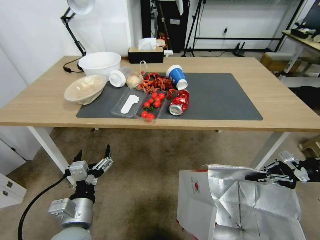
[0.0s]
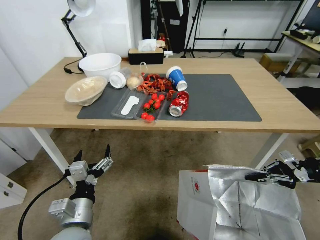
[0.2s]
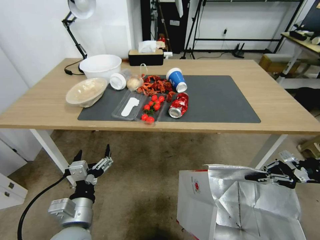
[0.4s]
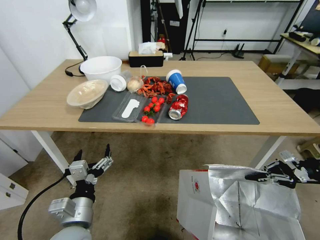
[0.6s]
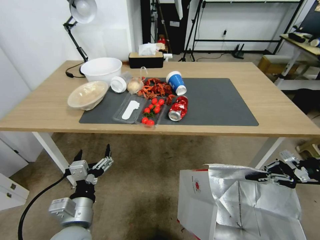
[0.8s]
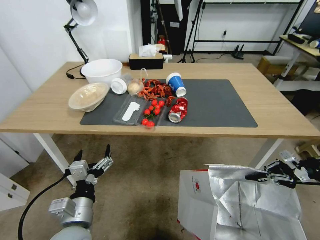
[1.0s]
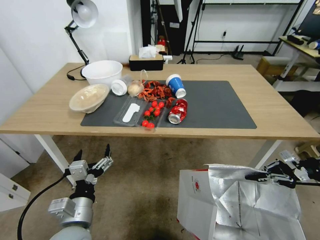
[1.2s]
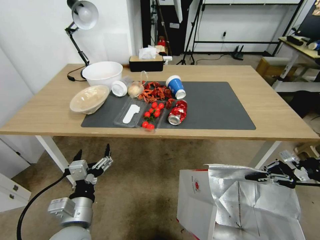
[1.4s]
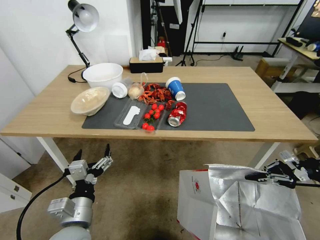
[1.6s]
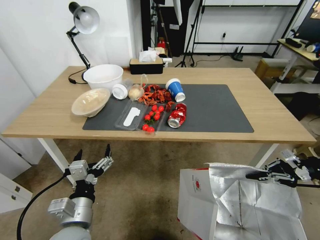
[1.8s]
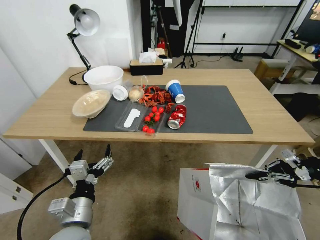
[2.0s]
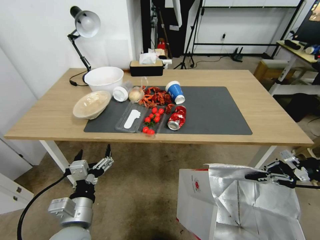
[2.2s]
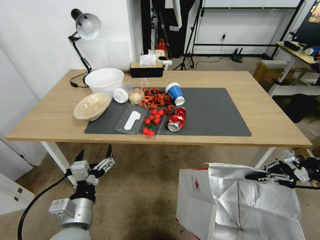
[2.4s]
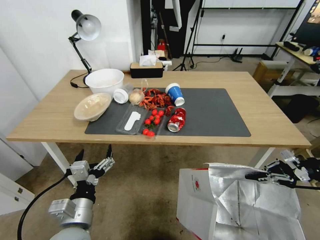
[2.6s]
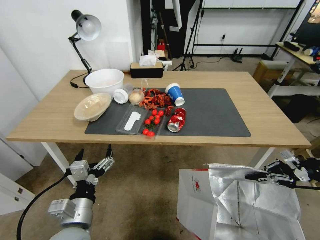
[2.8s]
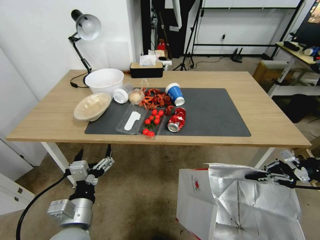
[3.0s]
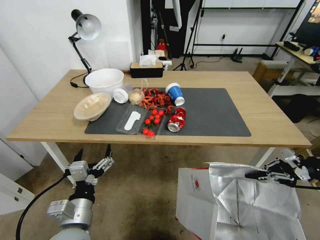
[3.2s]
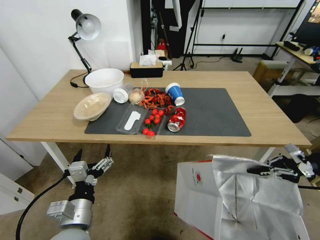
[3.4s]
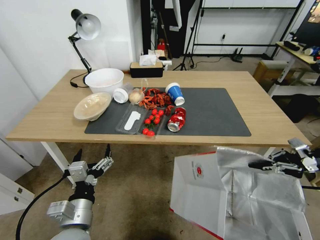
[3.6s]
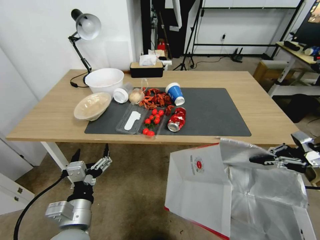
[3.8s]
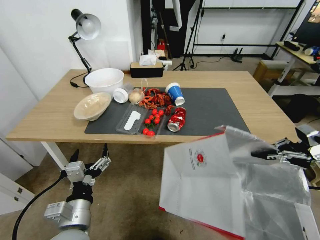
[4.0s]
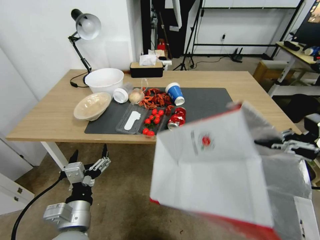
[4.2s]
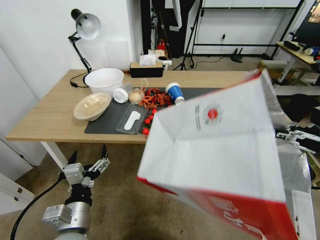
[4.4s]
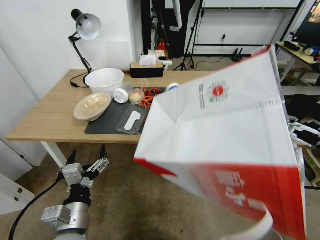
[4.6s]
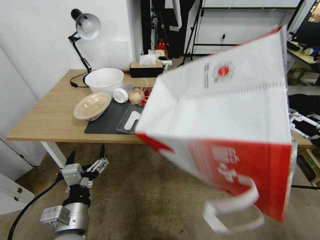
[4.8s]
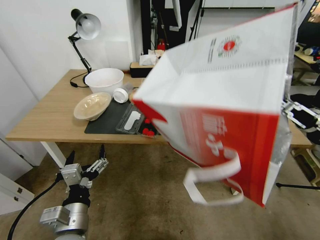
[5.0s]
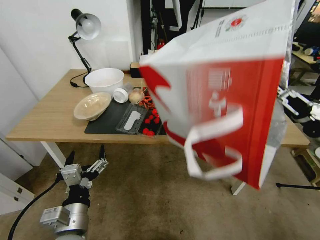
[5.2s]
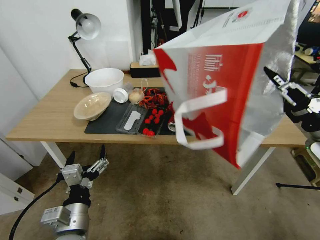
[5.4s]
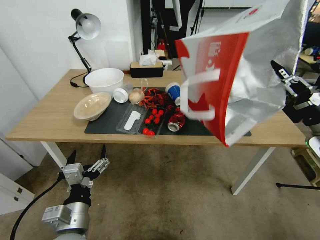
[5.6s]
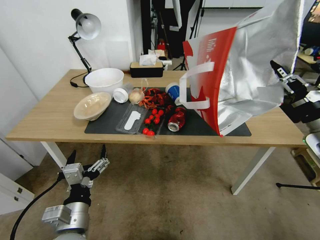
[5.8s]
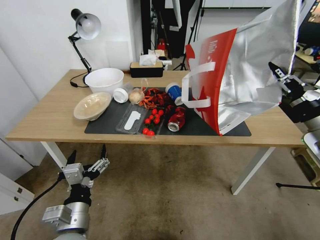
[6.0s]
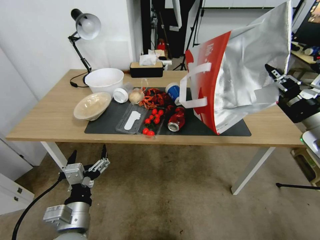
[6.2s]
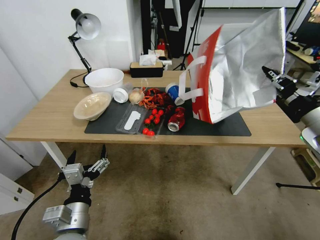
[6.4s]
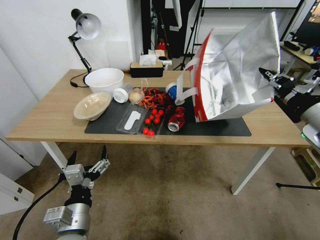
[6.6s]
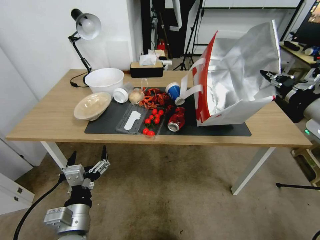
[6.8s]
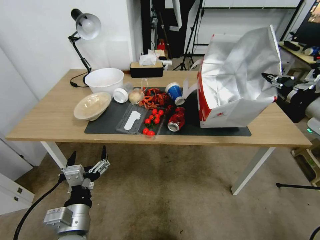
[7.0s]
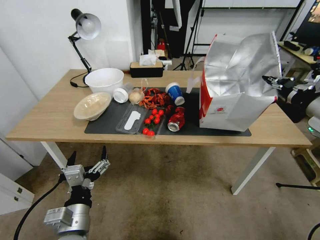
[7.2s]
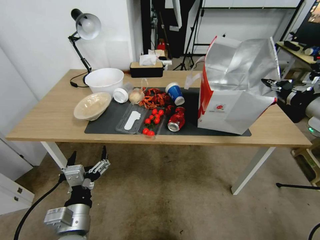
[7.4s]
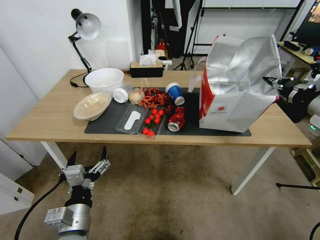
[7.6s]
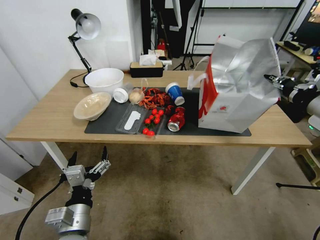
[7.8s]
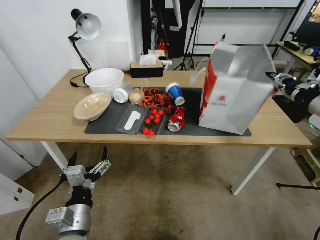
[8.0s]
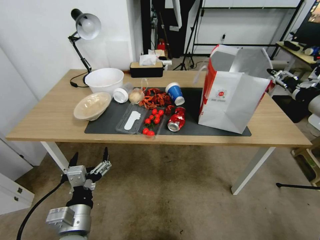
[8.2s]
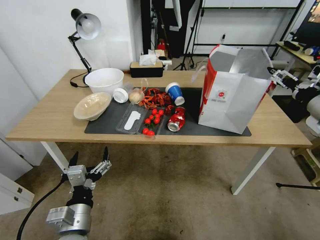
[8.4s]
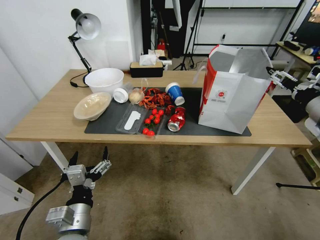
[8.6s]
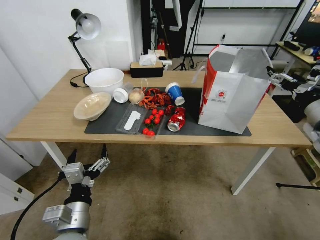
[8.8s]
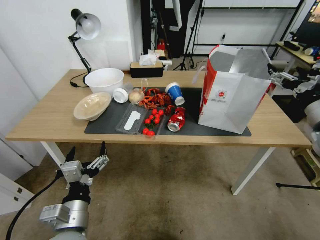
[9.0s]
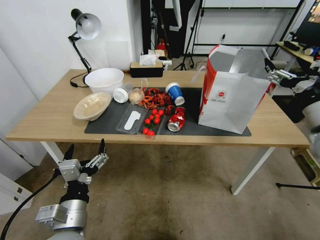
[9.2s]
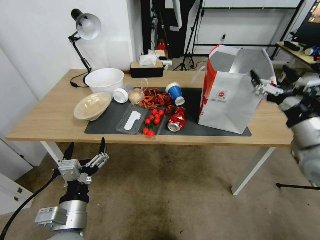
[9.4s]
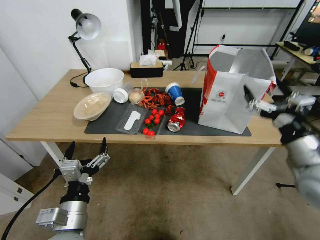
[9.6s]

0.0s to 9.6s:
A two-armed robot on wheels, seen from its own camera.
Task of the whole recording: Pick up the food delivery bag from the floor and place it on the table.
3.2s to 4.8s: The right gripper heads to the left, covering about 5 cm.
4.8s to 6.4s: The right gripper goes about 10 cm to the left.
6.4s to 8.0s: The right gripper changes place by some 5 cm, and opens its fingers.
8.0s to 9.6s: The right gripper heads downward, backward and to the left, covering about 15 cm, and opens up.

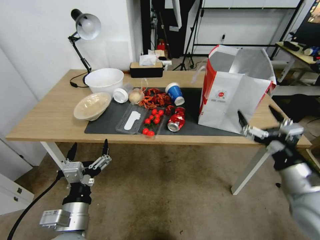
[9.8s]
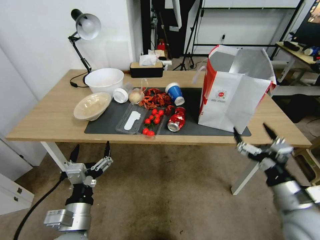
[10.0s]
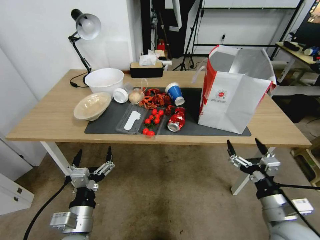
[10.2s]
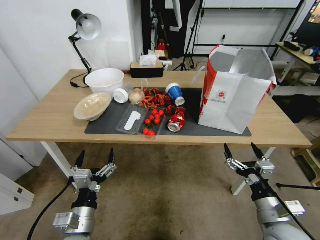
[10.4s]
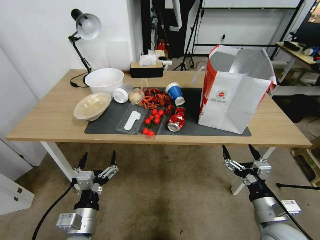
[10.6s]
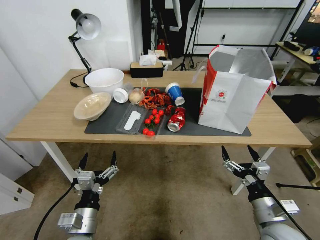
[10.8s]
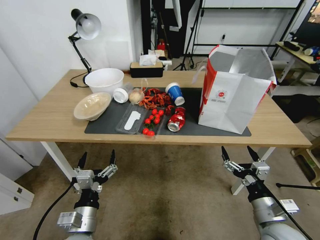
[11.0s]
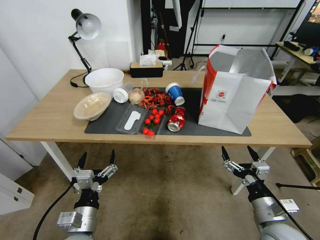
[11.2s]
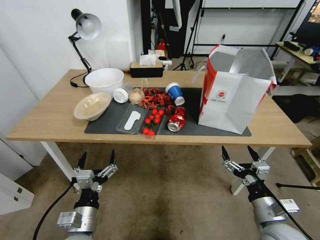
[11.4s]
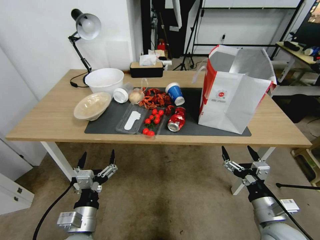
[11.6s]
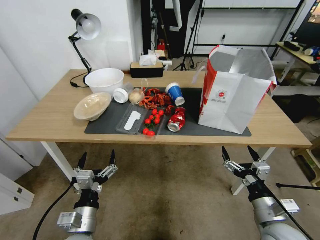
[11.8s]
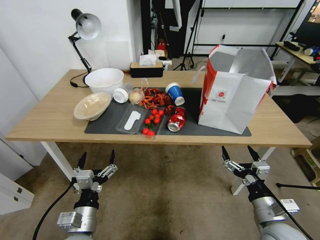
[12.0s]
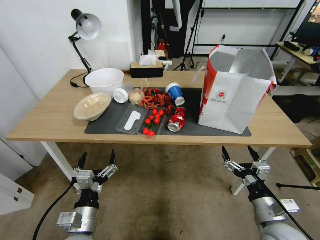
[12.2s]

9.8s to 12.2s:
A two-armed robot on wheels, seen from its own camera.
Task of the whole recording: Pick up the food delivery bag from the floor and place it on the table.
9.8s to 11.0s: The left gripper moves downward, roughly 5 cm, while the right gripper shifts about 10 cm downward.
11.0s to 12.2s: Both grippers stay put.

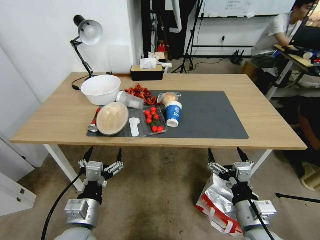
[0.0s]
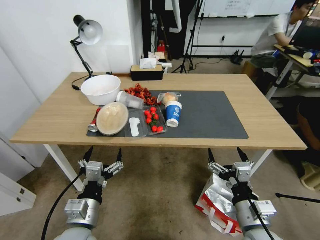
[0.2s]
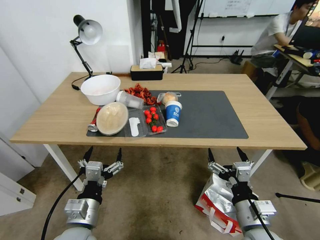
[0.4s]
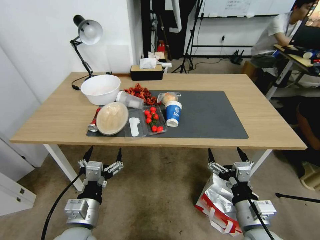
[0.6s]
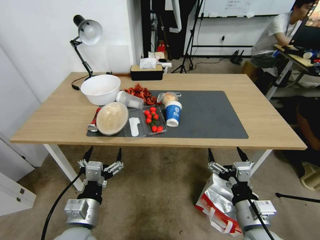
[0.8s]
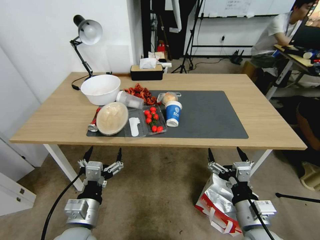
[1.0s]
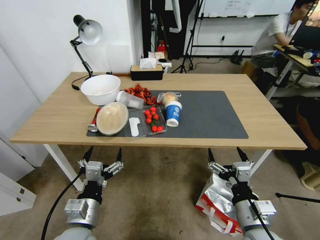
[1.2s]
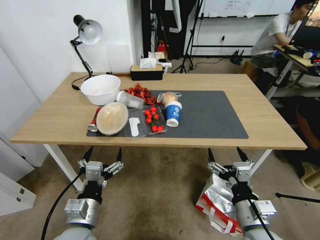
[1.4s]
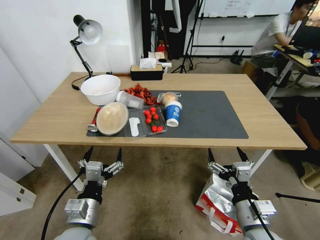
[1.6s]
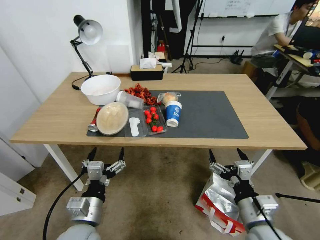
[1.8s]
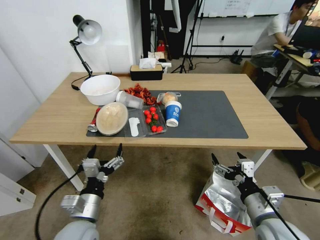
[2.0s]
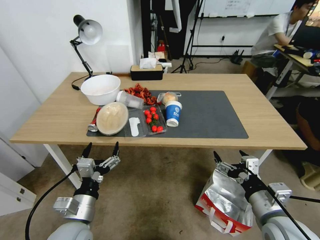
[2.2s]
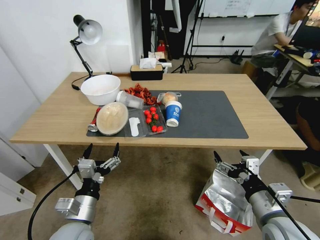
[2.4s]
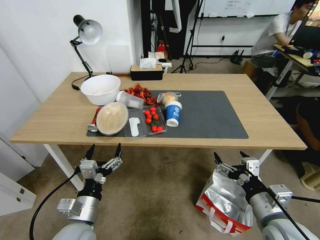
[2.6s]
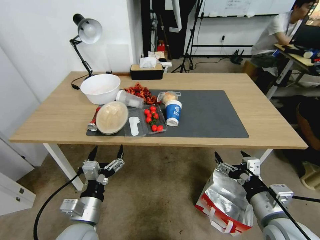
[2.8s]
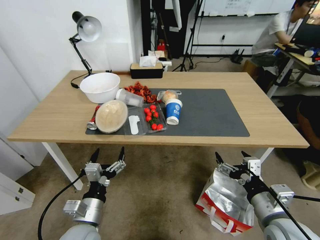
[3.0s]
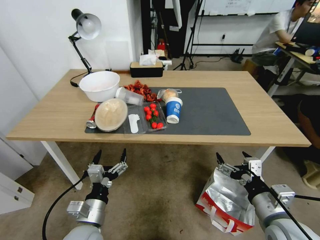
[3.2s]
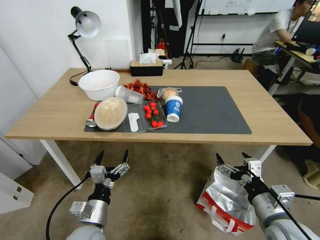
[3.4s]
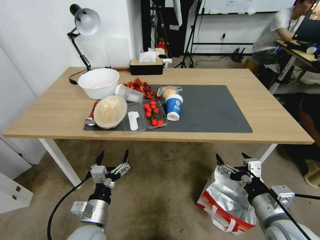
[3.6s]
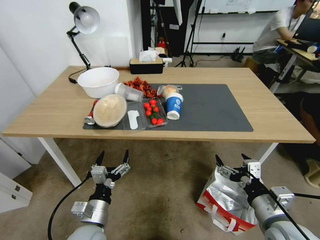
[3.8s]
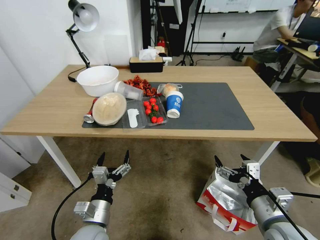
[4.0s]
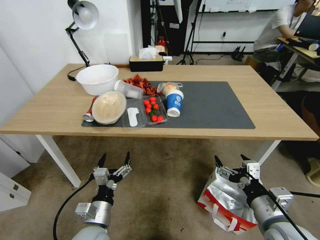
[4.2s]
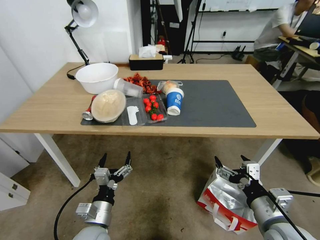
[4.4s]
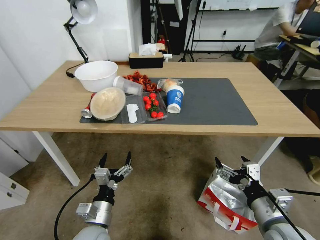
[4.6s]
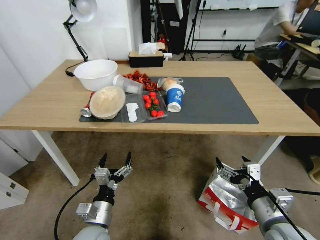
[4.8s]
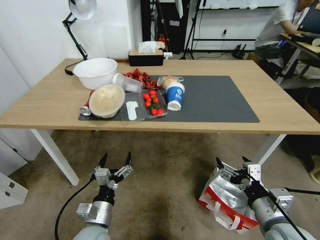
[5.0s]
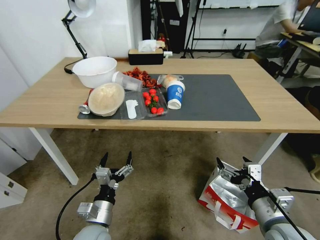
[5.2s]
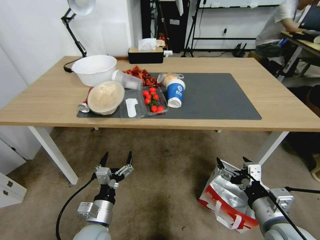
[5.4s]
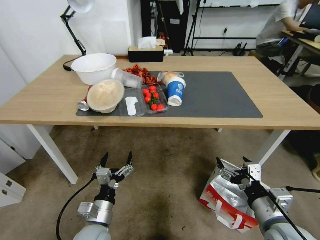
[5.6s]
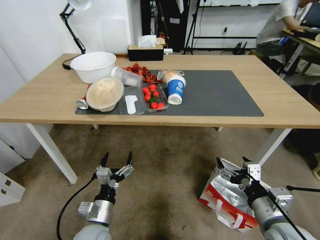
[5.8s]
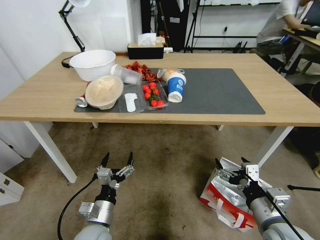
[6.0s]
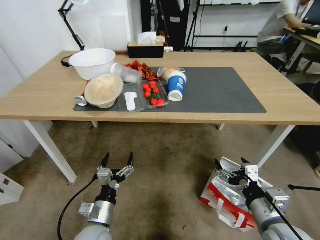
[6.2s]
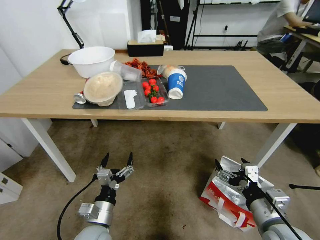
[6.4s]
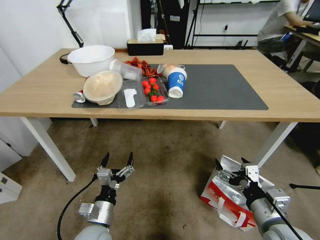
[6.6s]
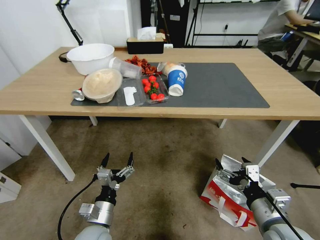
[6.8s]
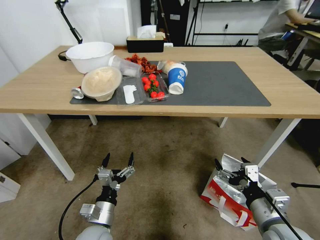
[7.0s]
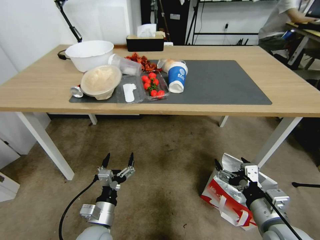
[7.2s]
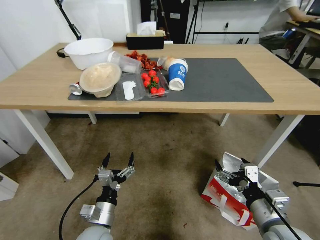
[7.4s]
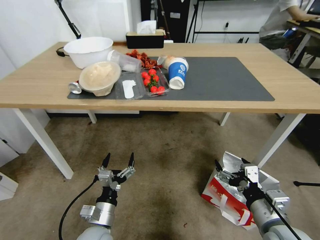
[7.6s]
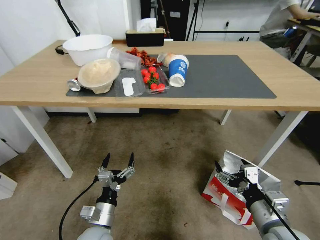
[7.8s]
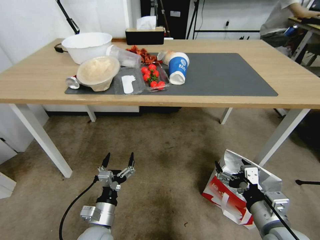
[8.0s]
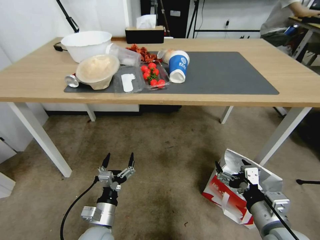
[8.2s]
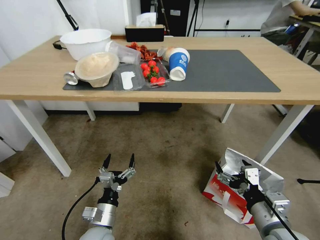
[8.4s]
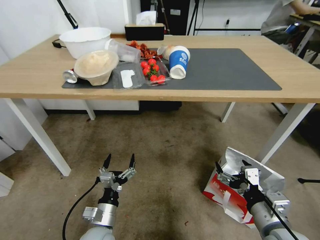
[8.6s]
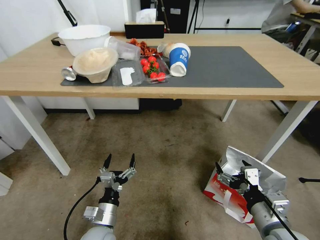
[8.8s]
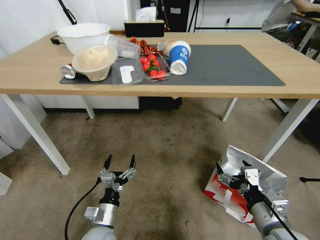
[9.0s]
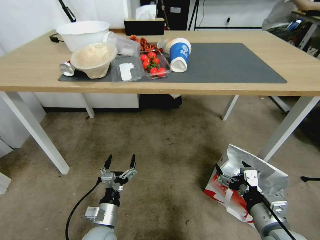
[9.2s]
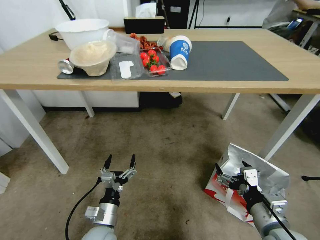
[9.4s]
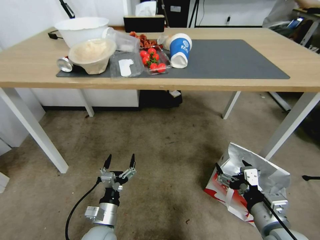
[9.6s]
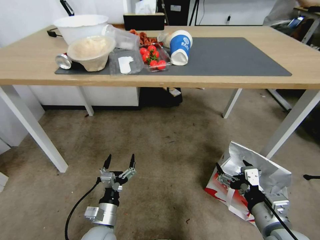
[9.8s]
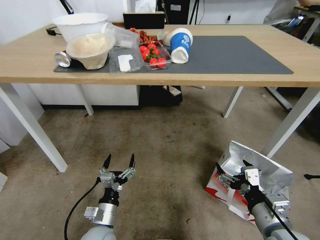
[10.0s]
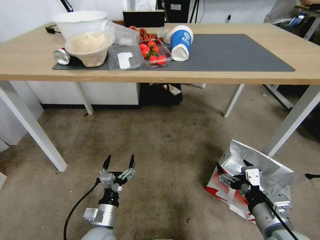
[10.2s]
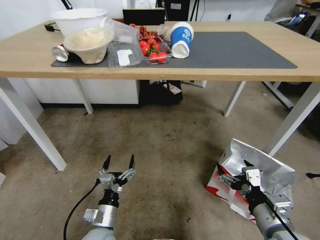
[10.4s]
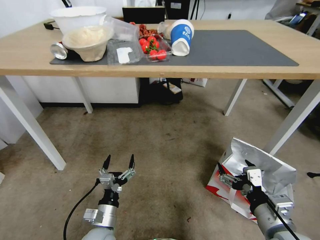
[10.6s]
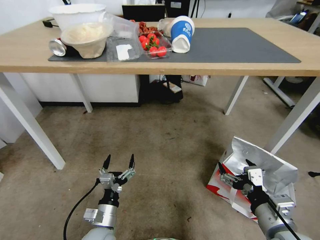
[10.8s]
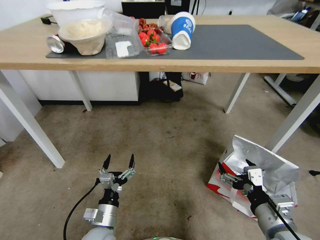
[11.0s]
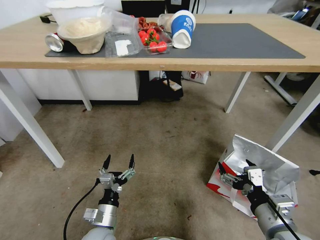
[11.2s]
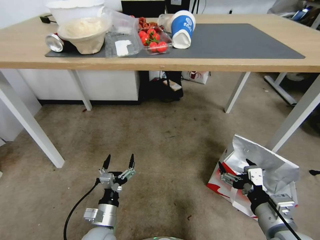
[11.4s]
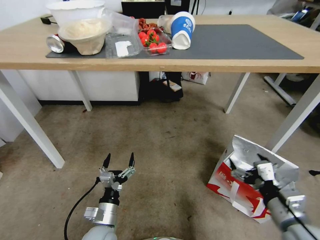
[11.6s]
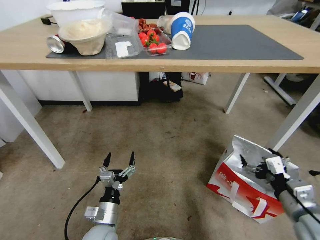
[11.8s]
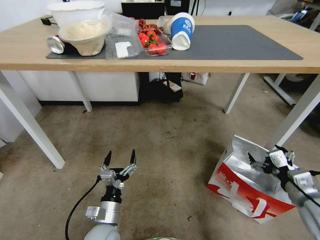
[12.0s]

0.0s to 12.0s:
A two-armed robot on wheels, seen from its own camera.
Task of the whole recording: Pick up the food delivery bag from the floor and place it on the table.
1.6s to 3.0s: The right gripper changes place by some 5 cm.
10.4s to 12.0s: The right gripper heads to the right and forward, covering about 10 cm.
